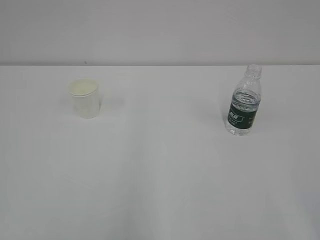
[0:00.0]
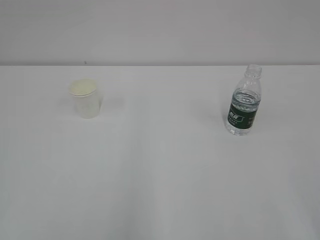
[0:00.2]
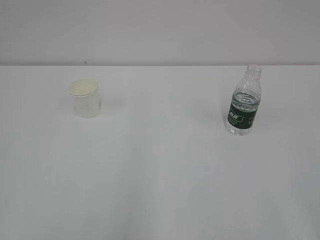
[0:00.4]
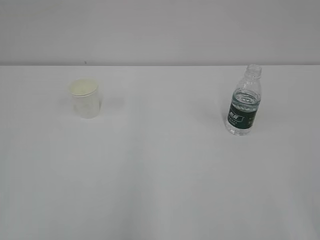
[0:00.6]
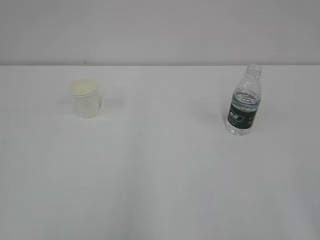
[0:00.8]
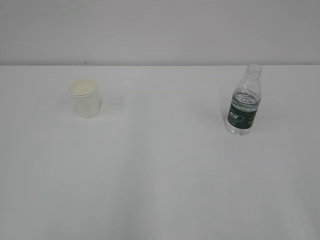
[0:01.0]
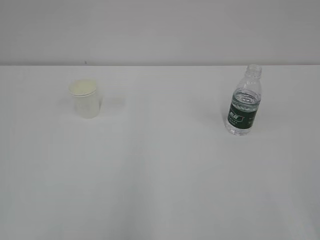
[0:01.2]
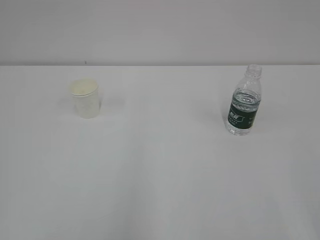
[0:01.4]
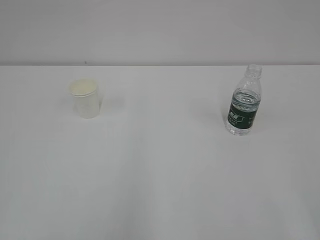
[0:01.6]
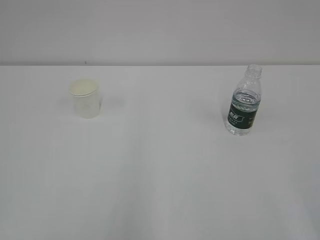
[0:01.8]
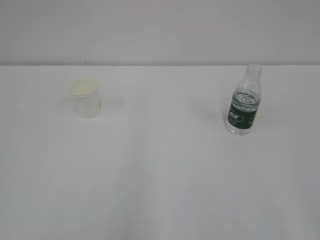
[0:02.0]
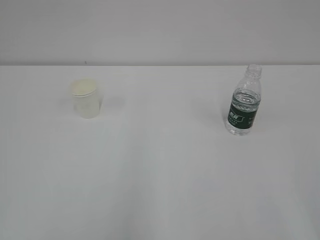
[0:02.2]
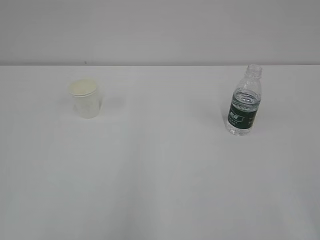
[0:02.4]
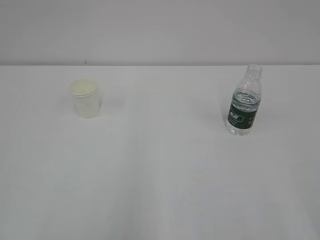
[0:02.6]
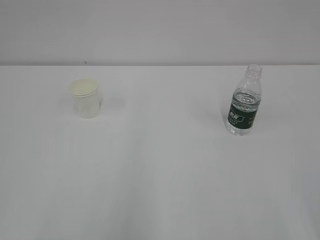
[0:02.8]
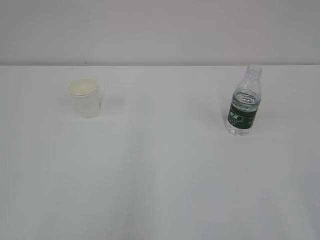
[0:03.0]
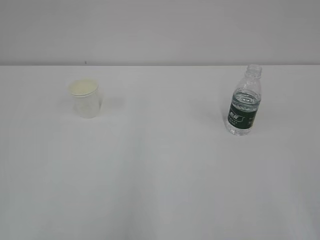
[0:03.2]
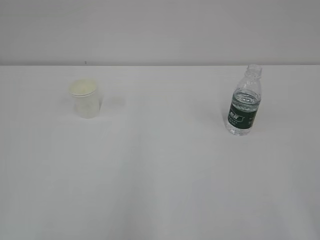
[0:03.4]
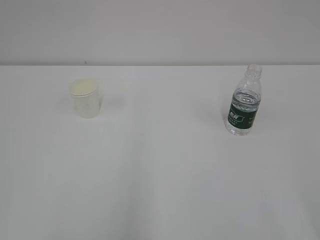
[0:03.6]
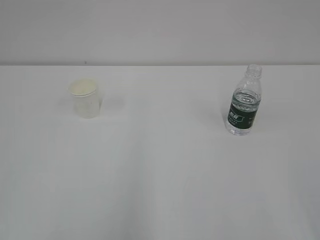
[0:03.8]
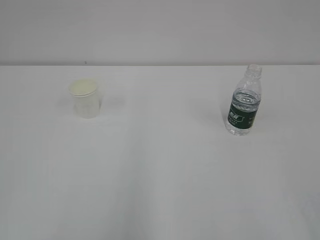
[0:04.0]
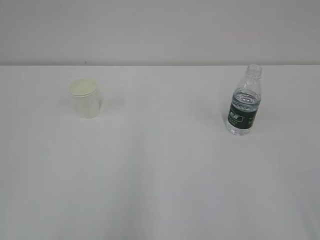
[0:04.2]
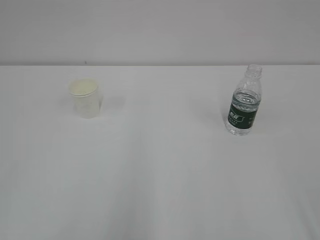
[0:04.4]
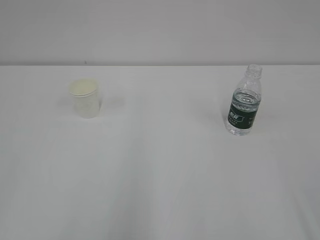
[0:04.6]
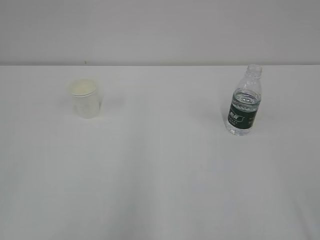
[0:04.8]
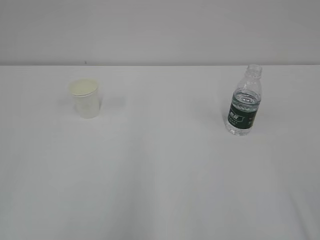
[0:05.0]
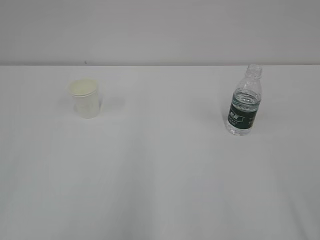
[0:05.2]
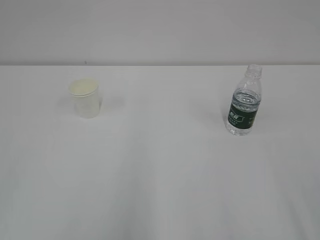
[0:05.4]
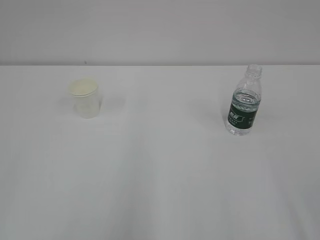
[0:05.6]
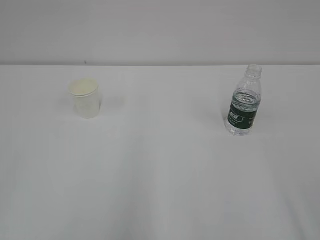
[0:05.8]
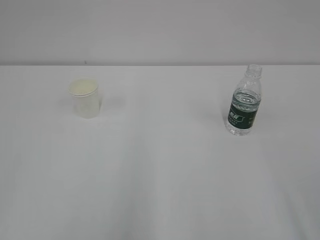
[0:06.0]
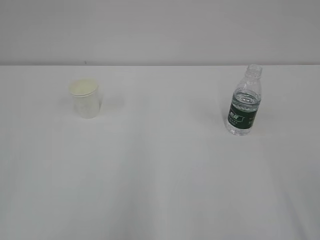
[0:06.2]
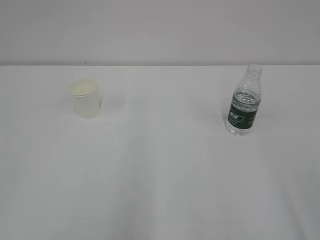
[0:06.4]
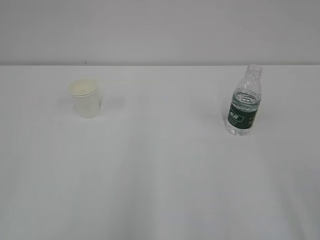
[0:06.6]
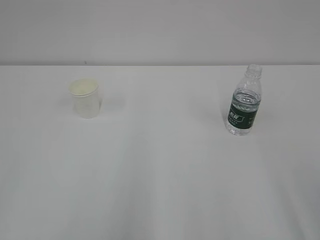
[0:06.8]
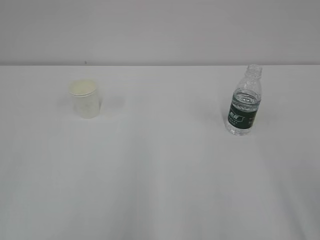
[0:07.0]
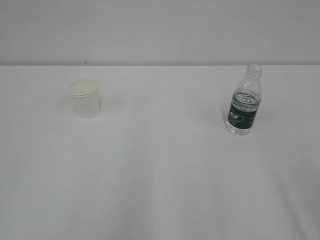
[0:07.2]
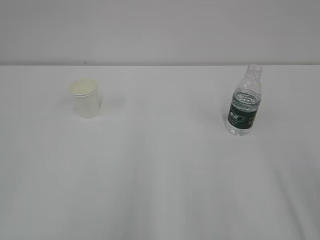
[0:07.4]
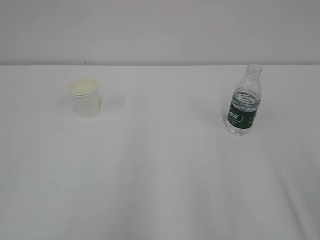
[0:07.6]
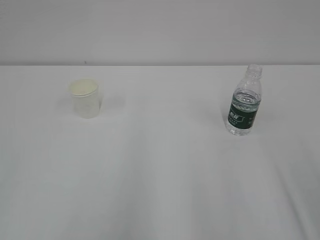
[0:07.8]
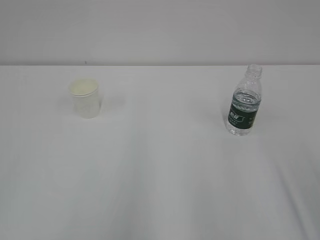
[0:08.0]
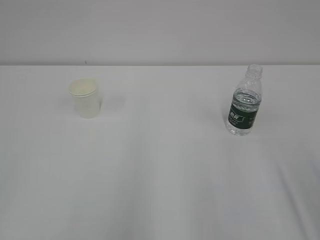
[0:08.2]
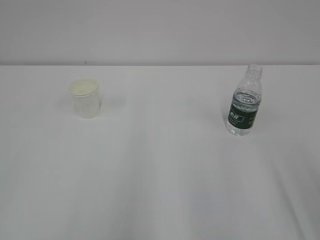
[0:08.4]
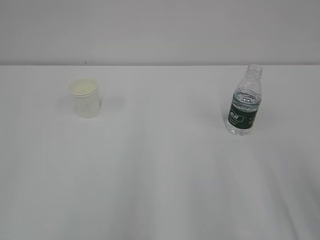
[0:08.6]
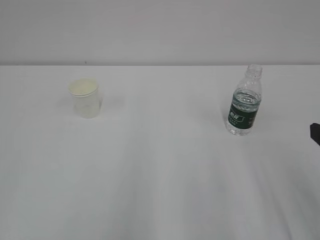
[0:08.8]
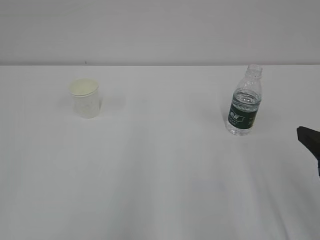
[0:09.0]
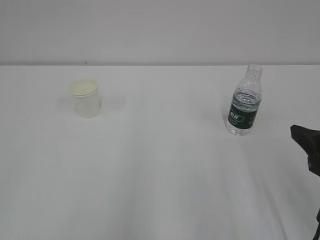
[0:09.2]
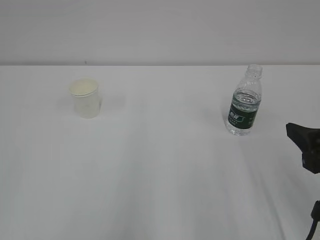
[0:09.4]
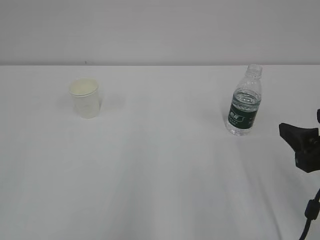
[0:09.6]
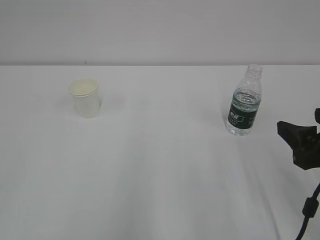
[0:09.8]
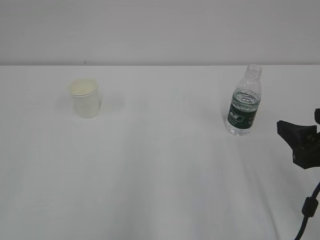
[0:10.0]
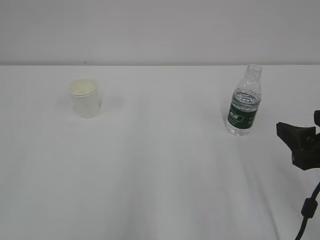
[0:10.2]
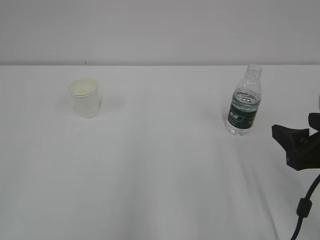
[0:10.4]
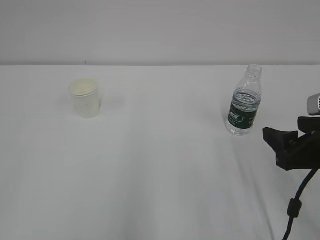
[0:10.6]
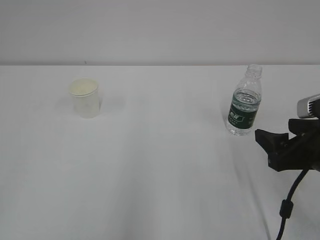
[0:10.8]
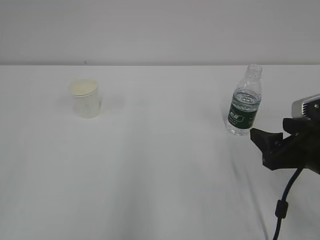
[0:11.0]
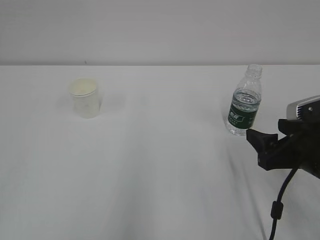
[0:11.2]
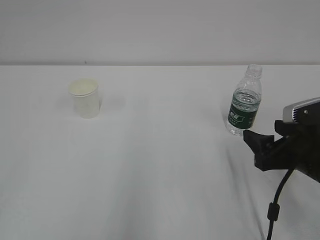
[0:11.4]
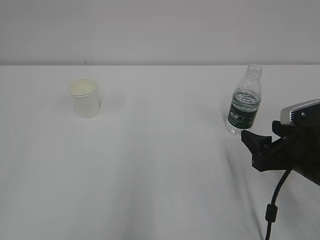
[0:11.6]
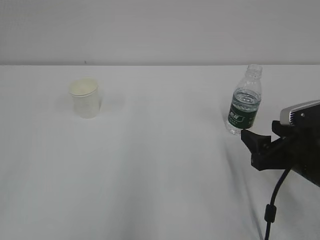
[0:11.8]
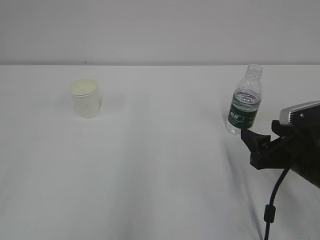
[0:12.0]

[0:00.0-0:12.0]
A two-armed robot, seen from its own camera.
0:07.6 to 0:09.0: The right gripper travels forward by some 5 cm.
0:09.0 to 0:10.4: The grippers stay close to where they were, moving slightly.
0:10.4 to 0:12.0: The right gripper travels downward by some 5 cm.

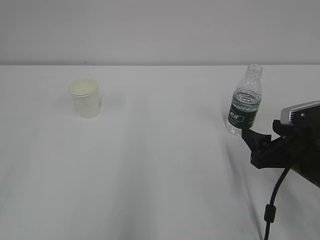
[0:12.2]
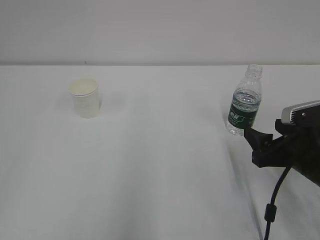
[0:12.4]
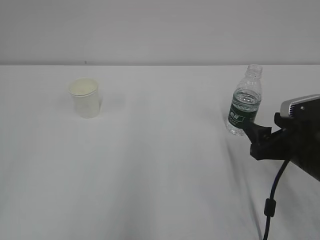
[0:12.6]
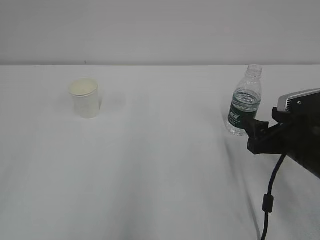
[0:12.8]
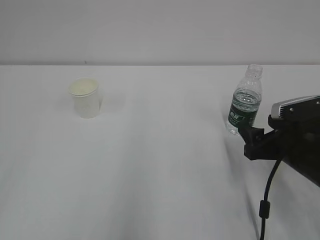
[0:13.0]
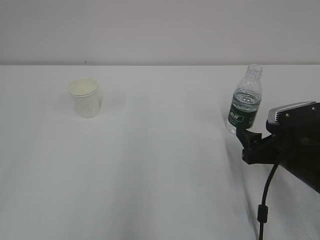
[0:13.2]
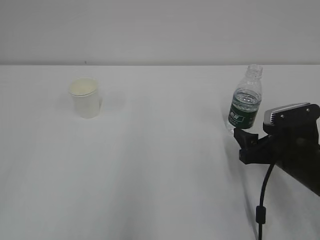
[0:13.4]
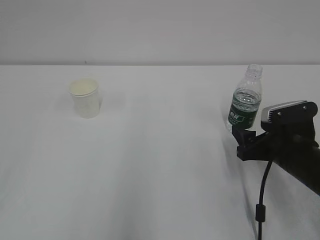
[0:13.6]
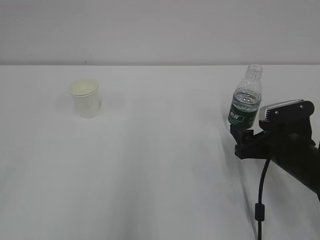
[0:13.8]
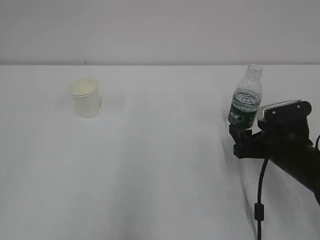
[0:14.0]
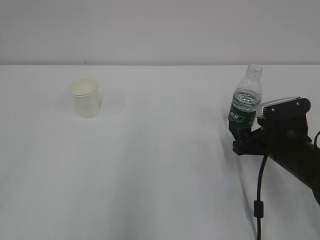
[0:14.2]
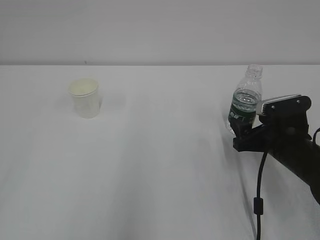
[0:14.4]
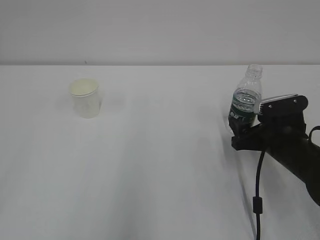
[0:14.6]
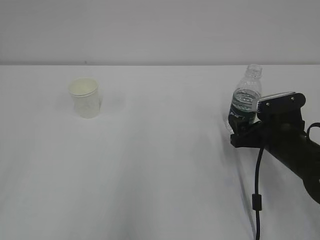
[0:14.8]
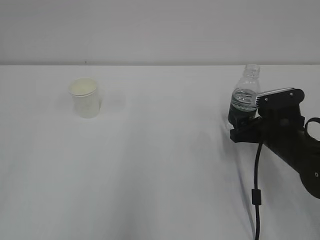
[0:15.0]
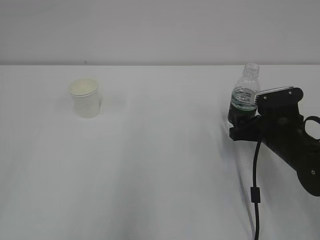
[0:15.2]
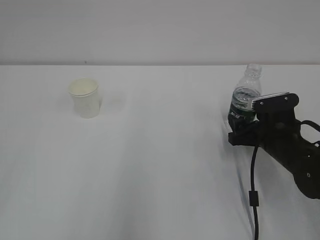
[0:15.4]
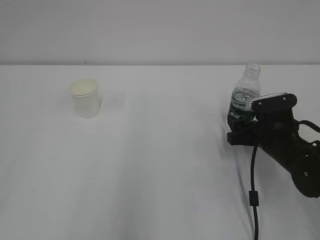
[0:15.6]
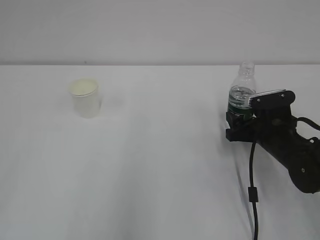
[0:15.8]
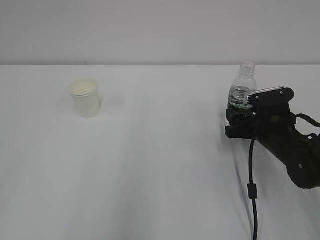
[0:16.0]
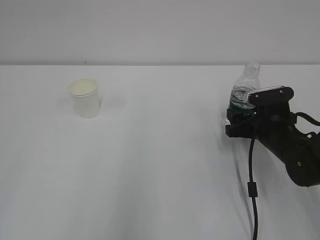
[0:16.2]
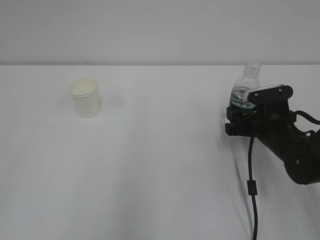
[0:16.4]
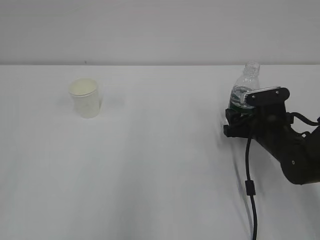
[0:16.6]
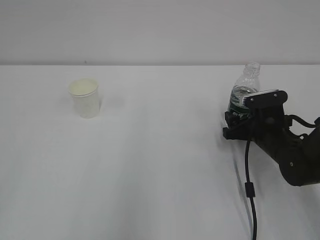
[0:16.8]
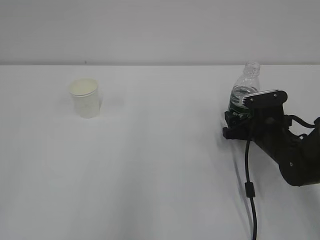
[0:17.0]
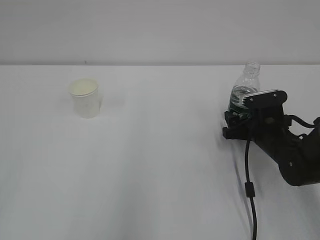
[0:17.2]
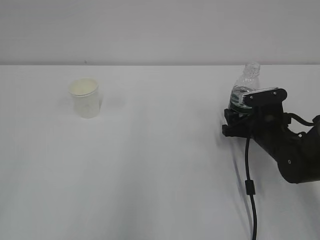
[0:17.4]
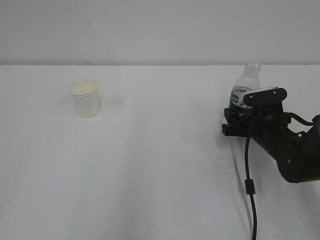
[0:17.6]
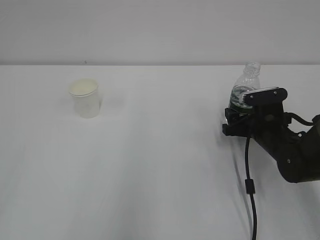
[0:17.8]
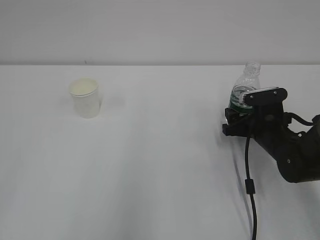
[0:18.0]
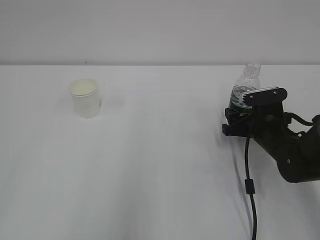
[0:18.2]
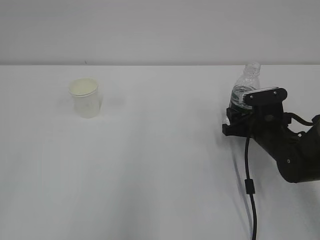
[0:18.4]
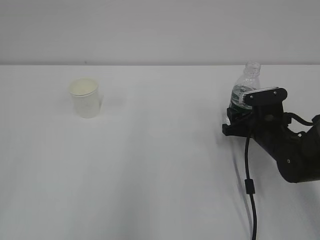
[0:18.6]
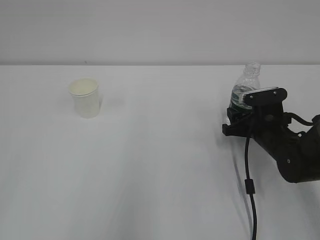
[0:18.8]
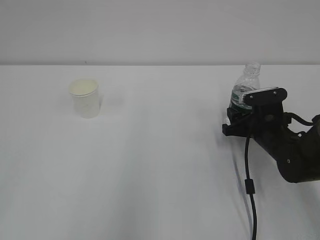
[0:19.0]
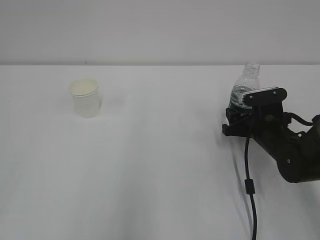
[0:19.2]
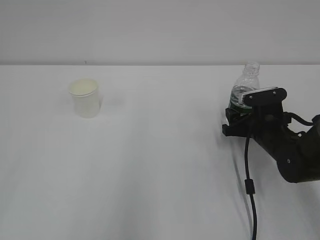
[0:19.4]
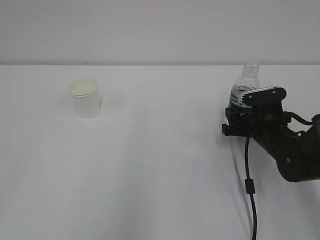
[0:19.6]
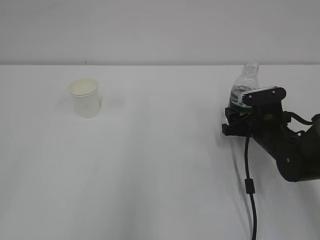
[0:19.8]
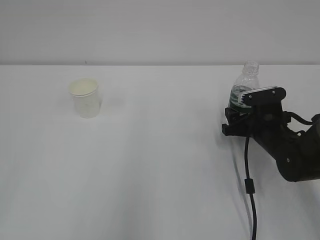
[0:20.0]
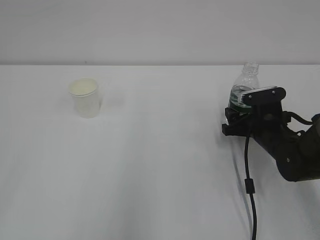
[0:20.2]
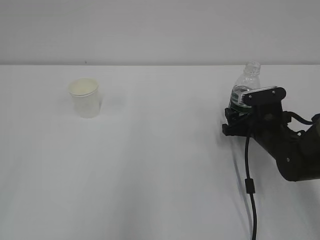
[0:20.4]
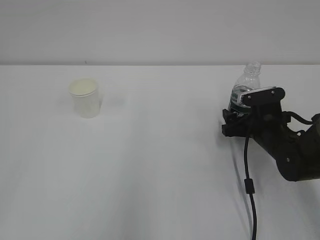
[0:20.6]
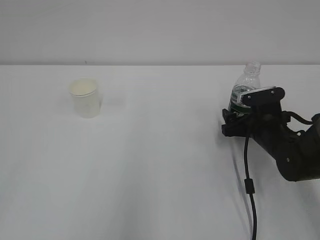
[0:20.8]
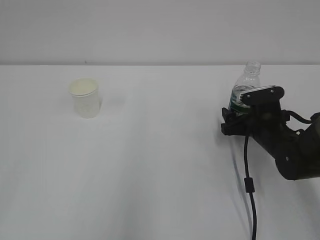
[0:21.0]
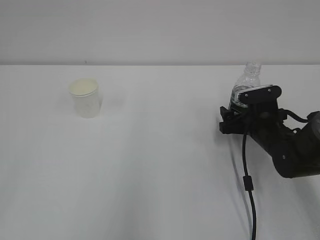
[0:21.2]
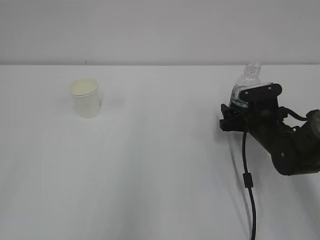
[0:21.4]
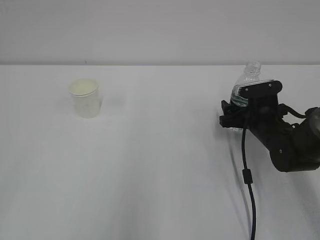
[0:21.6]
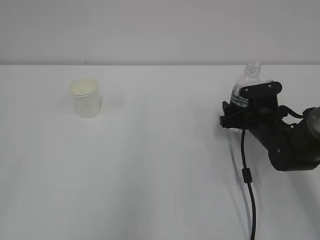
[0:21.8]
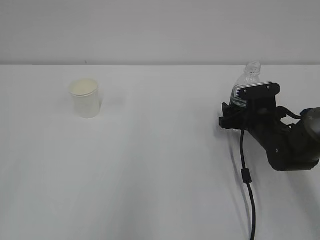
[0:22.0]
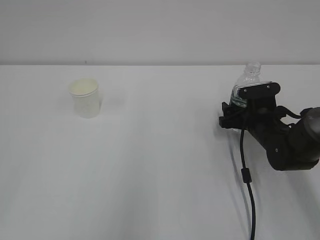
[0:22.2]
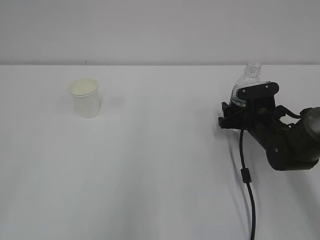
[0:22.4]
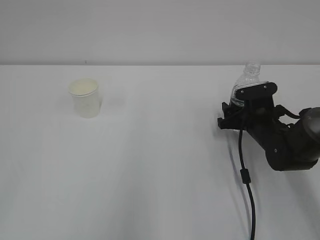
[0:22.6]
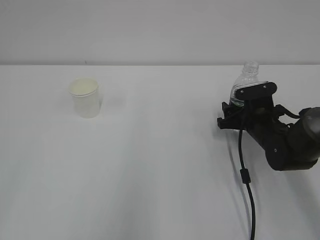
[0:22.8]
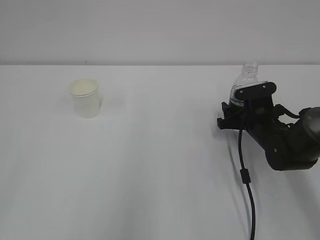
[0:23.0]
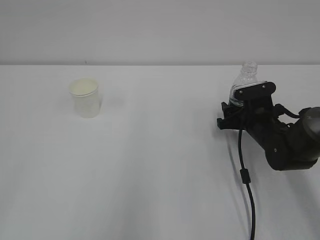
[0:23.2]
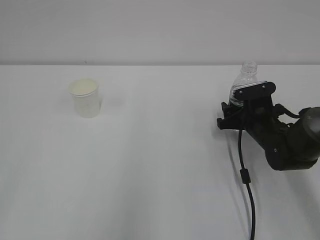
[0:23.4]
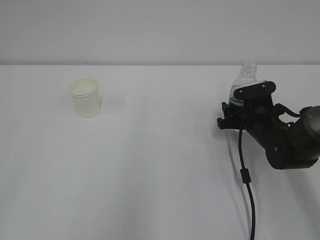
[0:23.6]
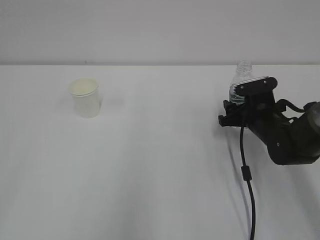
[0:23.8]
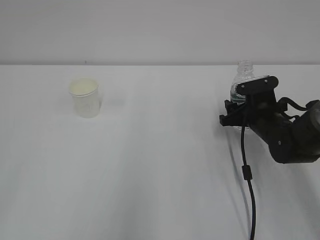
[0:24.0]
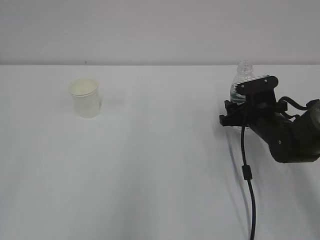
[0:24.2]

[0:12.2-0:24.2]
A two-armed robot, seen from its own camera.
0:12.2 to 0:13.8: The right gripper shifts by about 5 cm.
0:13.8 to 0:15.2: The grippers move only a little.
0:15.2 to 0:16.6: The grippers make only small movements.
0:16.6 to 0:18.2: Both grippers stay put.
0:19.8 to 0:21.2: Both grippers stay about where they are.
0:21.2 to 0:22.6: The grippers make only small movements.
0:22.6 to 0:24.2: Both grippers stay put.
